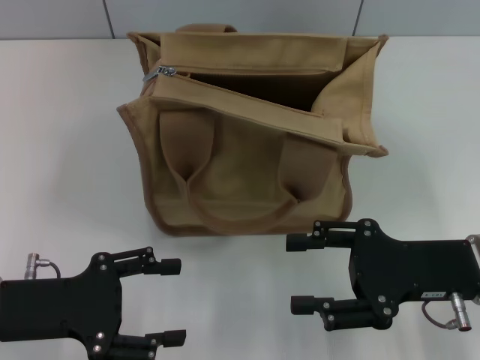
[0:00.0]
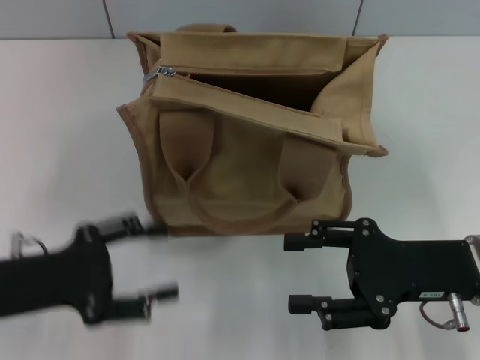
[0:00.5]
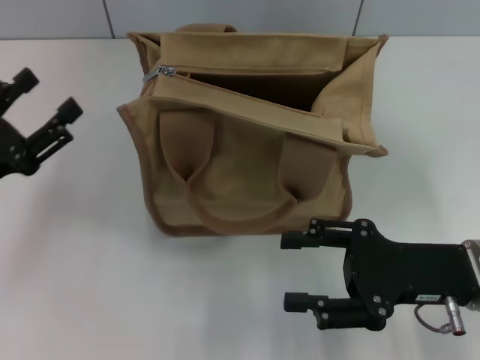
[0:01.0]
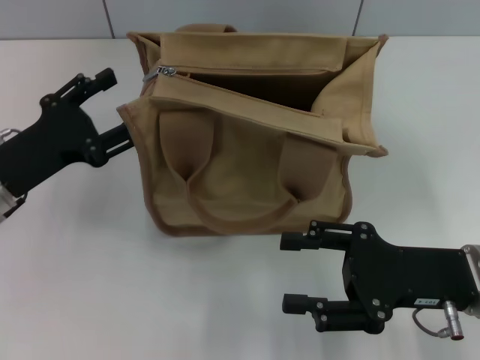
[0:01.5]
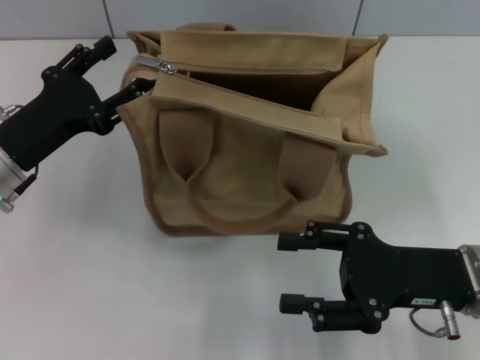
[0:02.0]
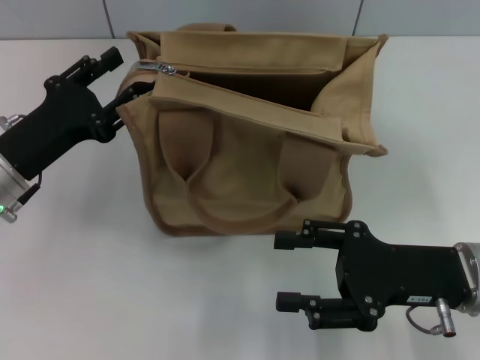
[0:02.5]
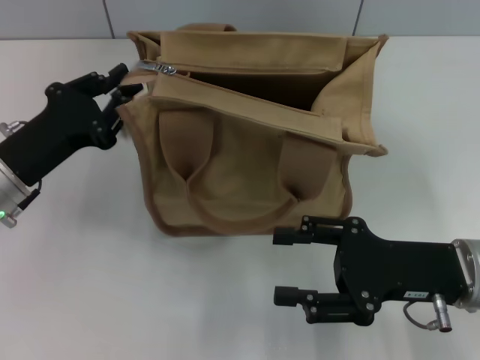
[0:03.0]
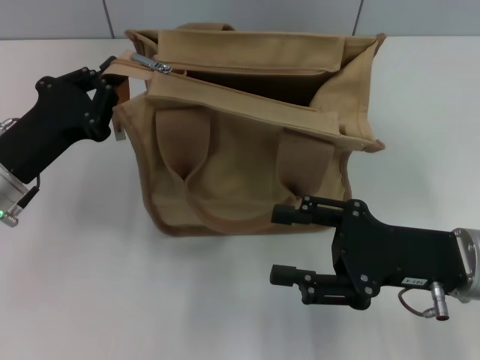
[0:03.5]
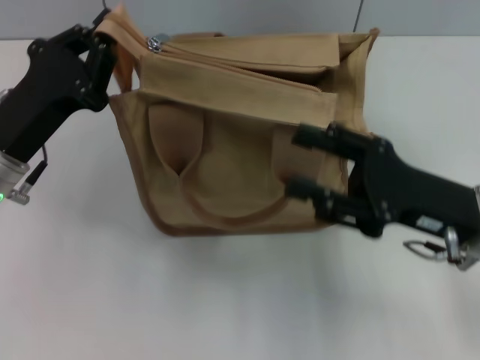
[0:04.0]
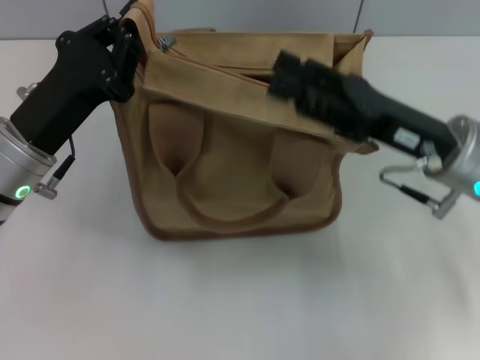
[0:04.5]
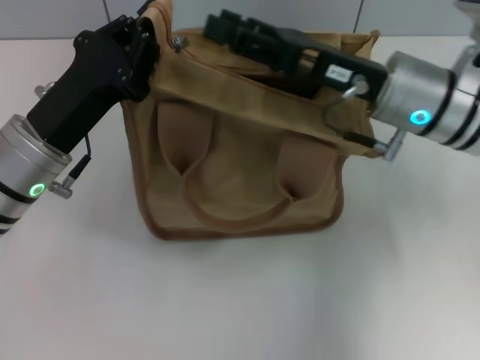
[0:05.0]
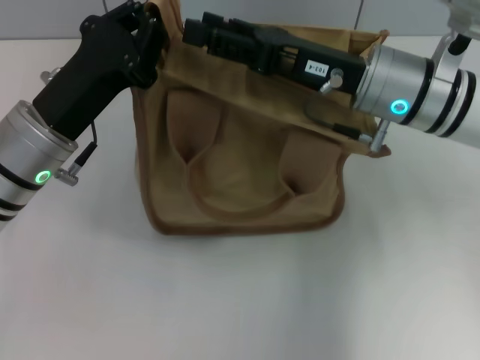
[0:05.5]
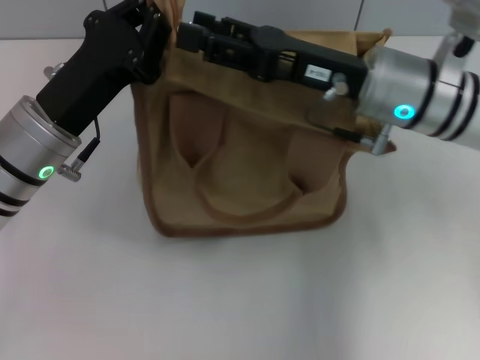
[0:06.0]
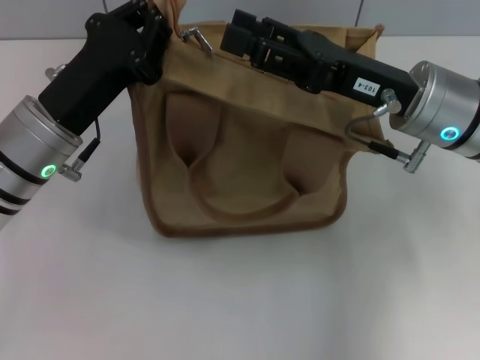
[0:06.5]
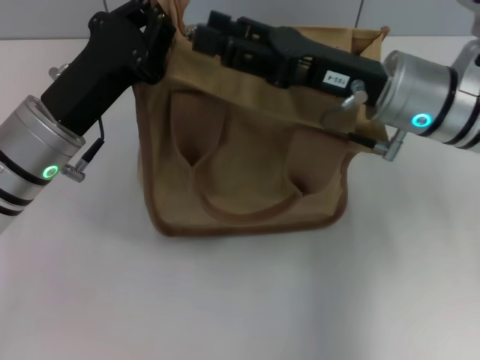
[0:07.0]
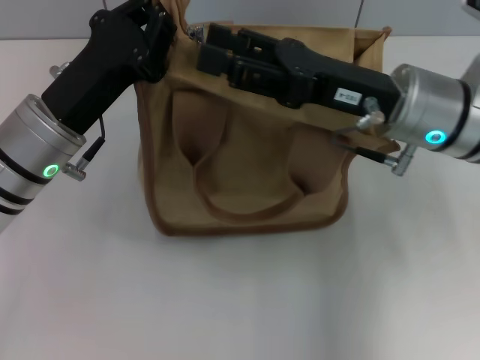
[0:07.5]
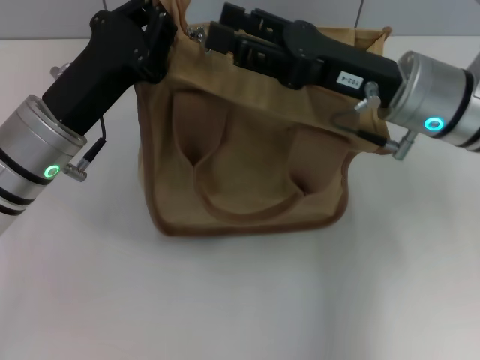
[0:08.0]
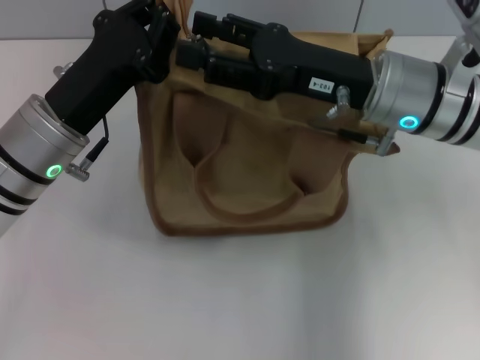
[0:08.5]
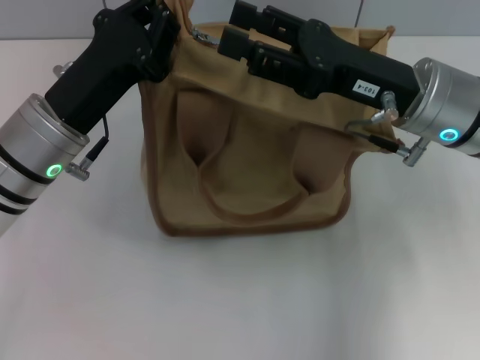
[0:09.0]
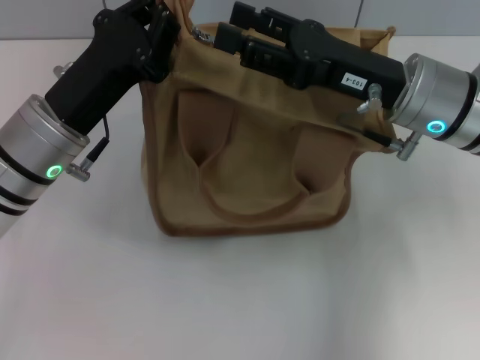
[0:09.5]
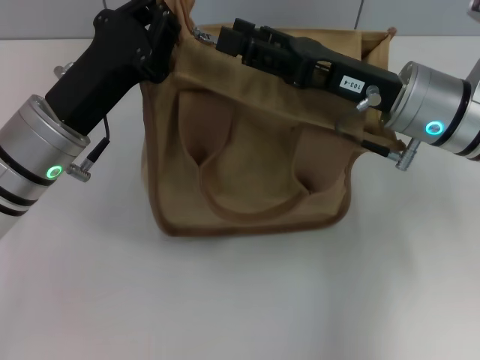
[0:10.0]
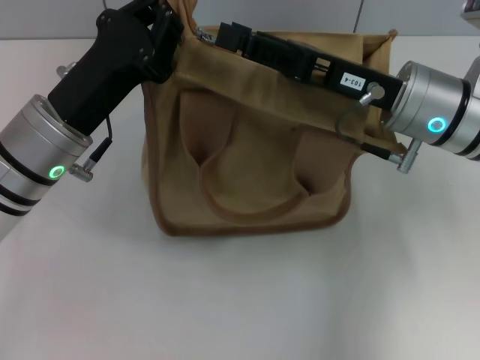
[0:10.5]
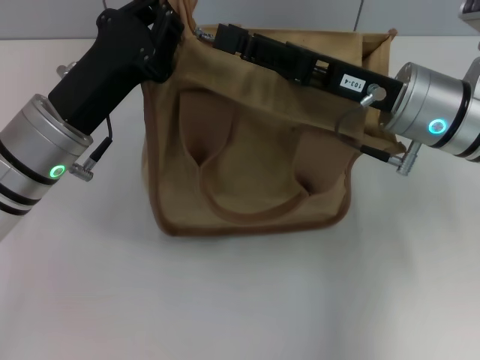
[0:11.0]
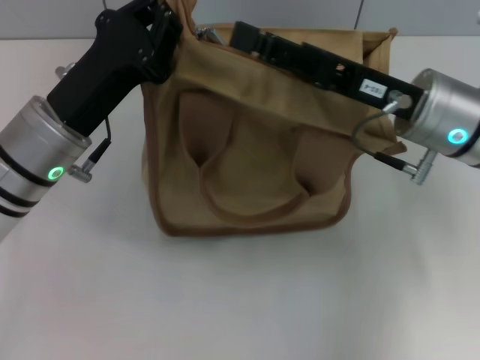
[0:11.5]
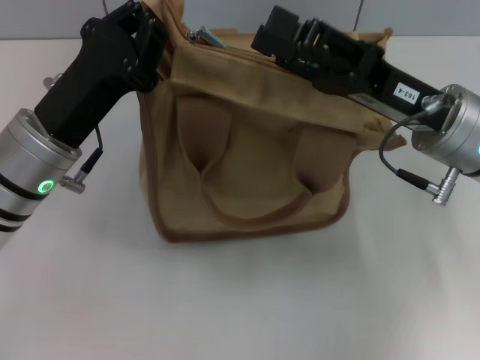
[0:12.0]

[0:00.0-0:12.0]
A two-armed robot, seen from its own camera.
0:00.0 to 0:02.0: The left gripper travels forward by some 10 cm.
0:02.0 to 0:04.0: The left gripper closes up.
0:04.0 to 0:06.0: The right gripper moves forward, to the left and upward, about 15 cm.
0:06.0 to 0:10.0: There are only small adjustments of the grippers.

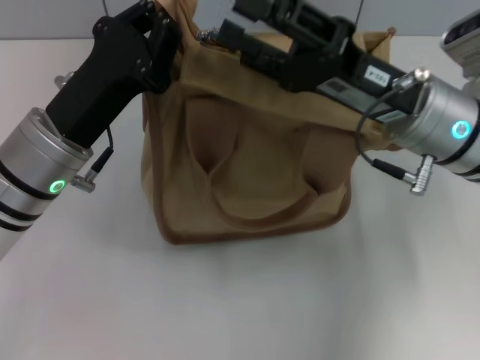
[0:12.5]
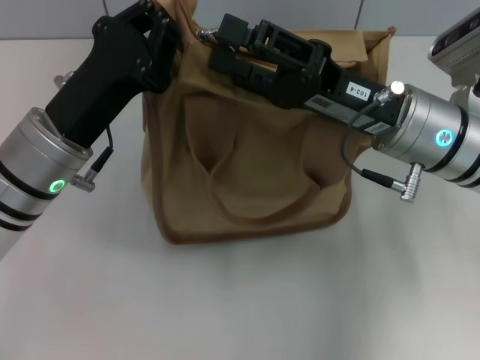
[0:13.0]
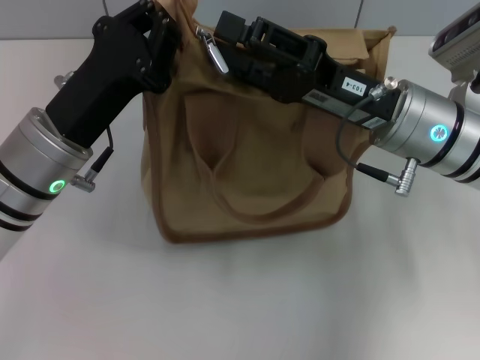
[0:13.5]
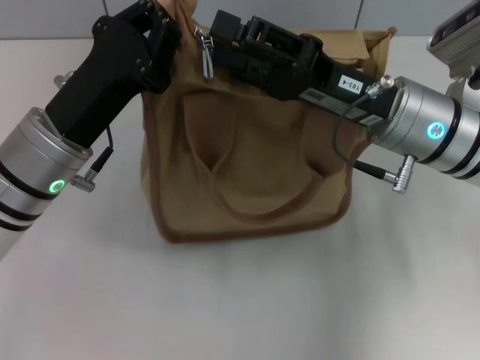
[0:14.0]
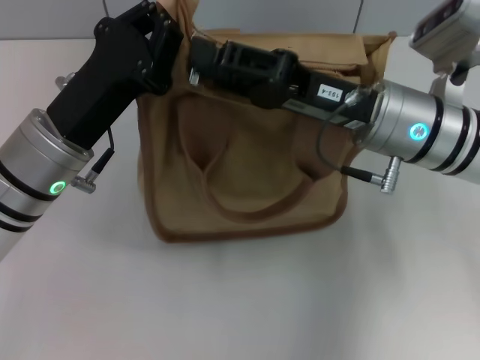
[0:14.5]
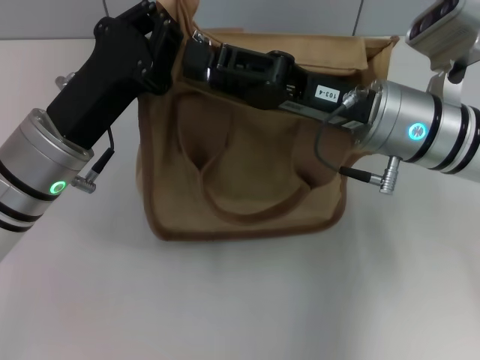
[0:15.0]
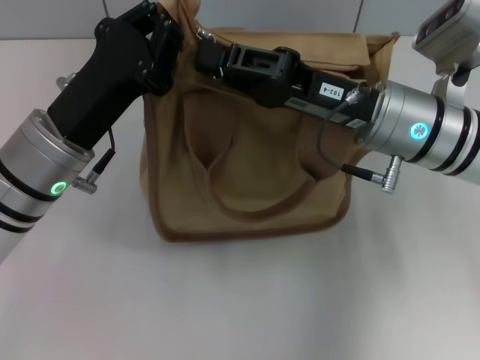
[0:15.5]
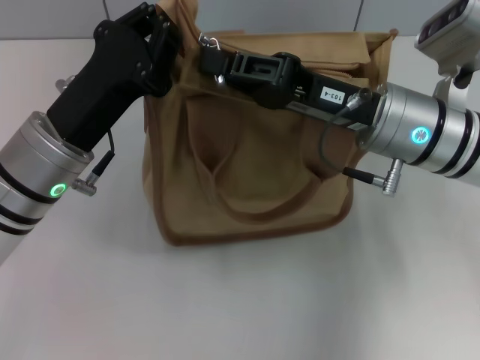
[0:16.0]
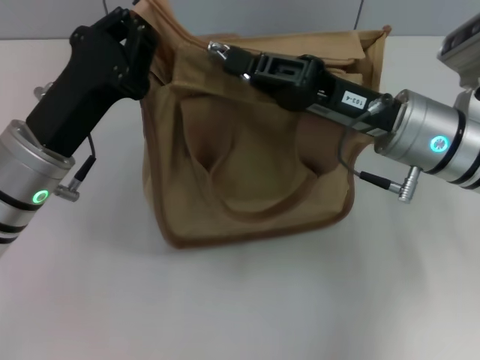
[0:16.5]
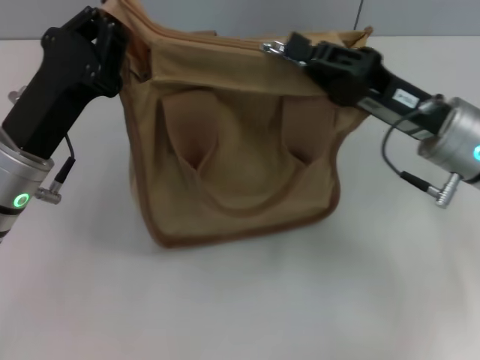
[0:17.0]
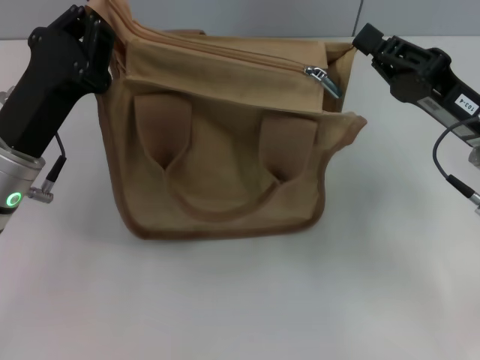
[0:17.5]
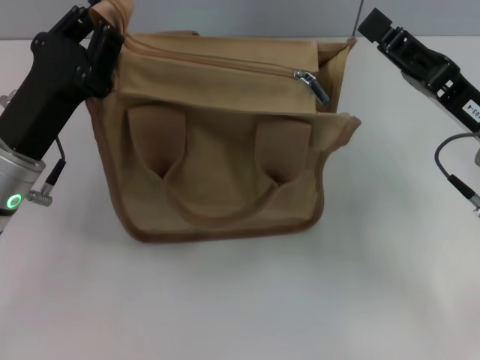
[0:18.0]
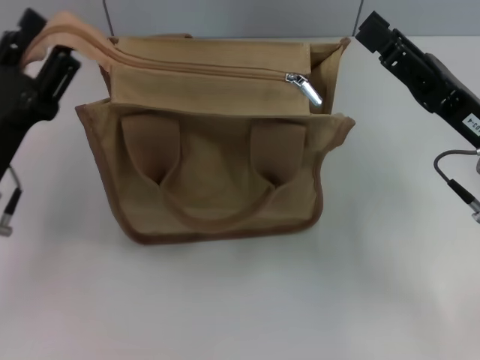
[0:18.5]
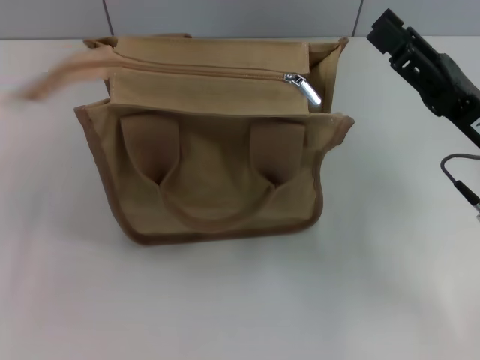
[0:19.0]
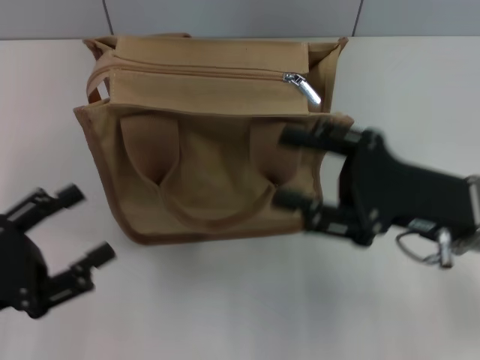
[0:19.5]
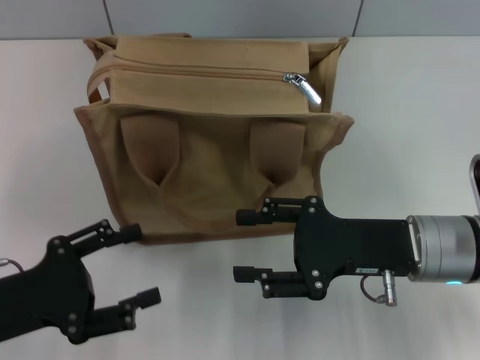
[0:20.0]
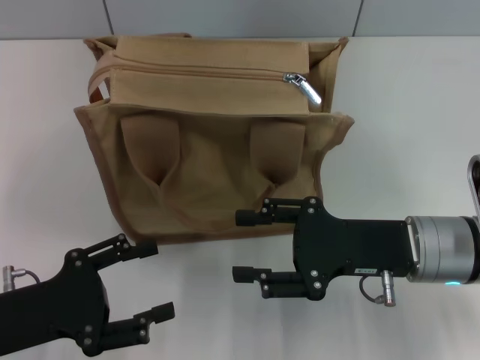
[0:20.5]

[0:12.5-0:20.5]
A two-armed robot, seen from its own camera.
Step, 0:12.5 to 0:17.0: Pull up the zipper with your right hand.
Step, 0:18.0 to 0:19.0: Grab the zipper with your left hand.
0:12.5 to 0:14.5: The grippers make only small movements.
0:14.5 to 0:16.5: The right gripper closes its fingers.
0:16.5 to 0:18.5: The left gripper moves to the left, about 5 cm, and opens; the right gripper moves to the right, approximately 5 cm, and opens its fingers.
0:18.5 to 0:20.5: The left gripper is displaced backward by some 5 cm, while the right gripper travels to the left by some 5 cm.
